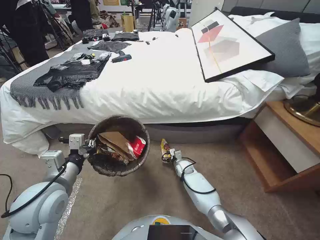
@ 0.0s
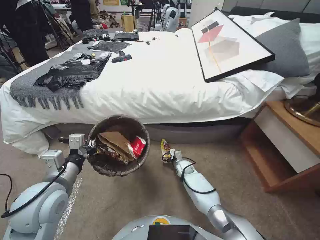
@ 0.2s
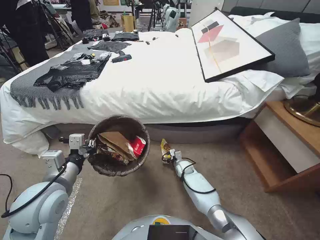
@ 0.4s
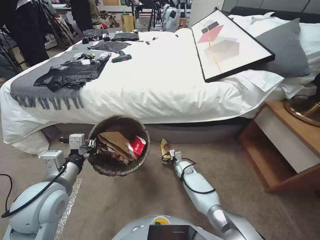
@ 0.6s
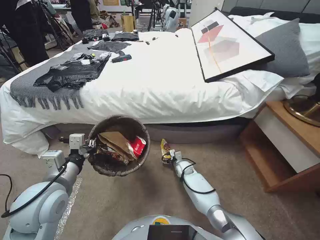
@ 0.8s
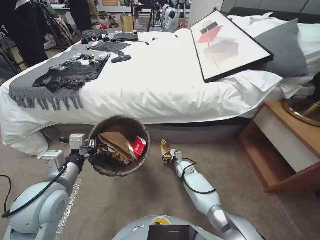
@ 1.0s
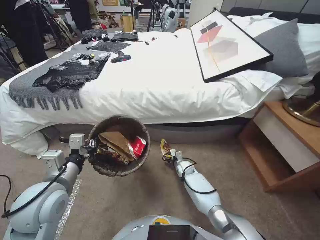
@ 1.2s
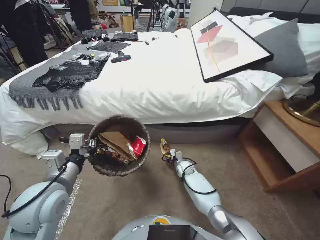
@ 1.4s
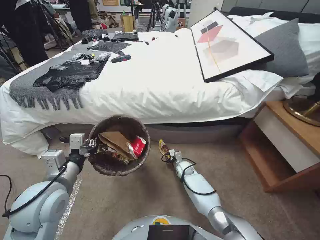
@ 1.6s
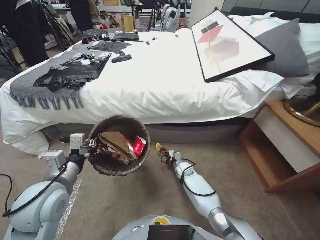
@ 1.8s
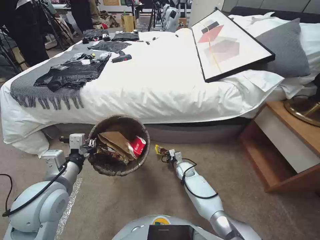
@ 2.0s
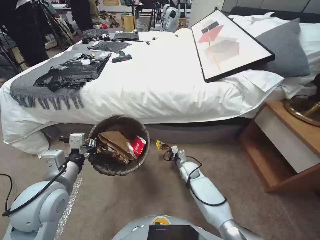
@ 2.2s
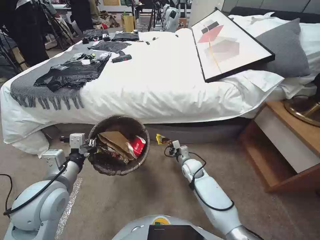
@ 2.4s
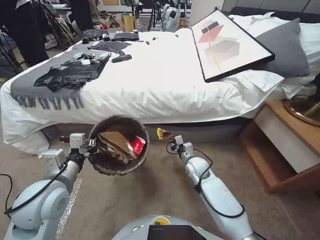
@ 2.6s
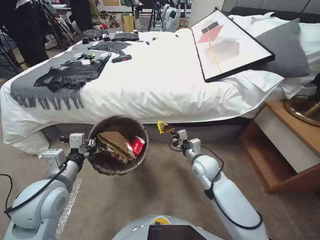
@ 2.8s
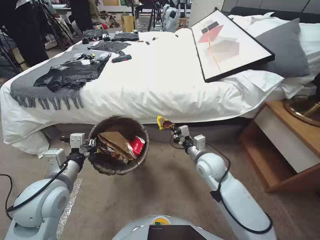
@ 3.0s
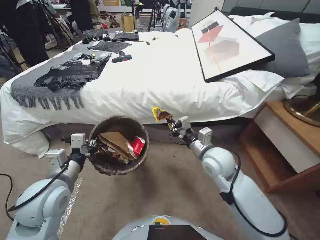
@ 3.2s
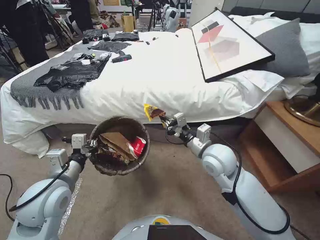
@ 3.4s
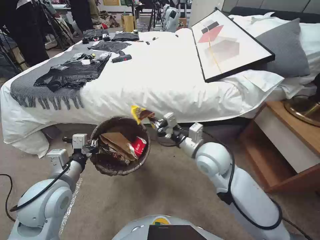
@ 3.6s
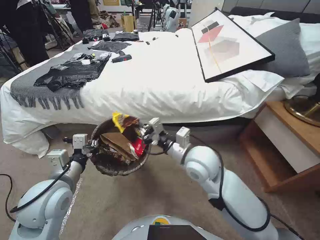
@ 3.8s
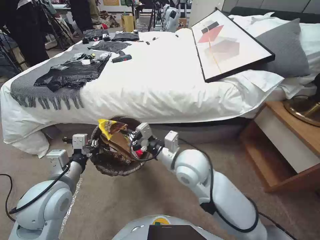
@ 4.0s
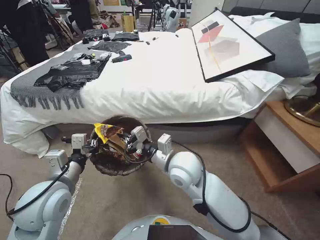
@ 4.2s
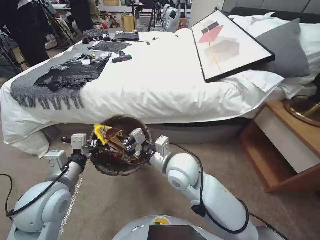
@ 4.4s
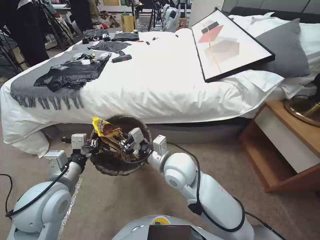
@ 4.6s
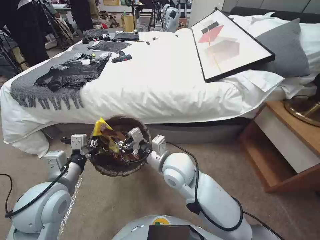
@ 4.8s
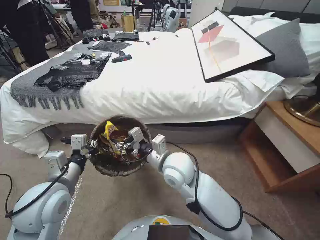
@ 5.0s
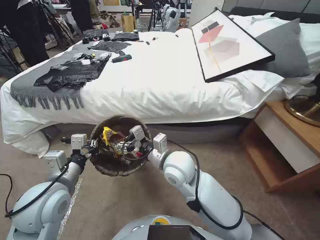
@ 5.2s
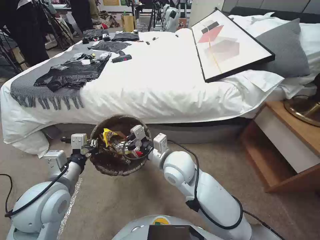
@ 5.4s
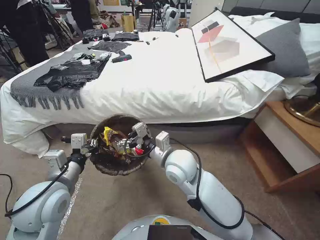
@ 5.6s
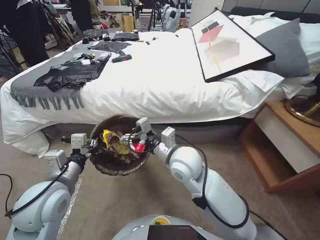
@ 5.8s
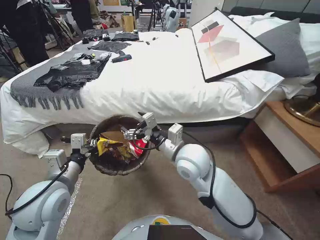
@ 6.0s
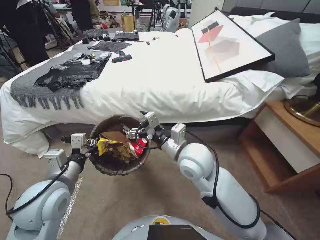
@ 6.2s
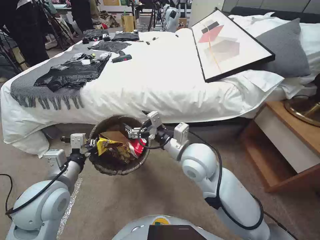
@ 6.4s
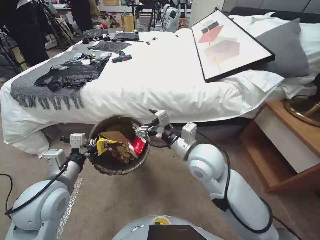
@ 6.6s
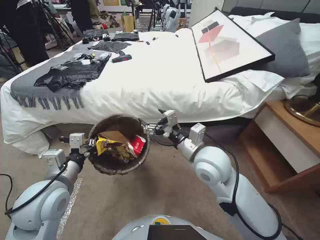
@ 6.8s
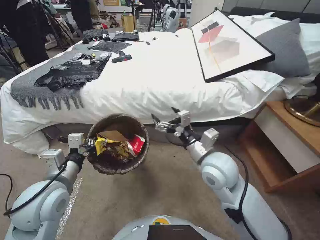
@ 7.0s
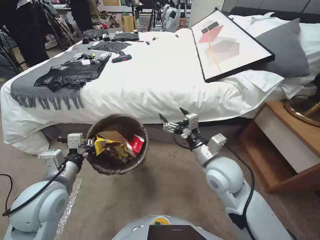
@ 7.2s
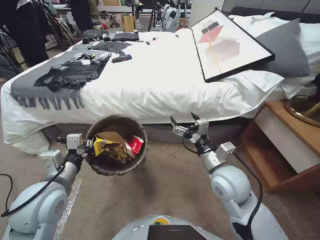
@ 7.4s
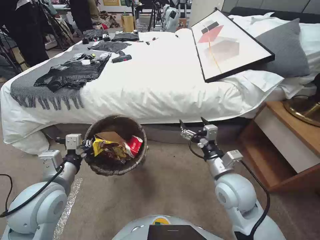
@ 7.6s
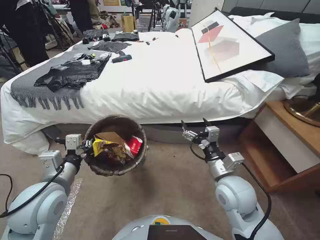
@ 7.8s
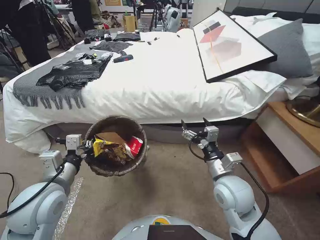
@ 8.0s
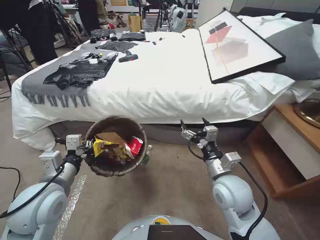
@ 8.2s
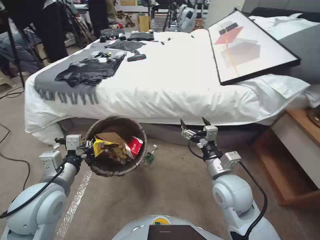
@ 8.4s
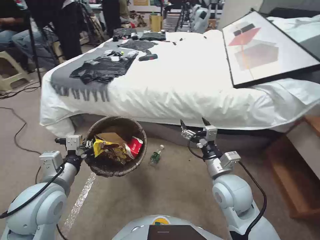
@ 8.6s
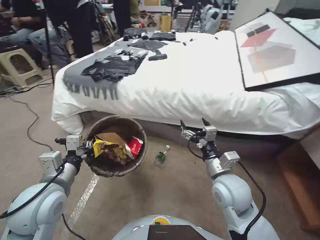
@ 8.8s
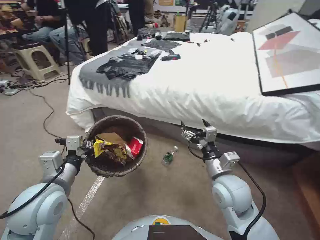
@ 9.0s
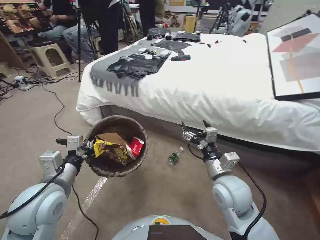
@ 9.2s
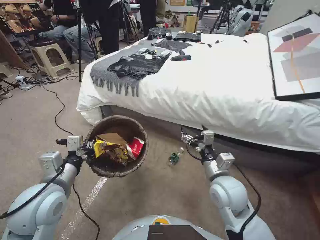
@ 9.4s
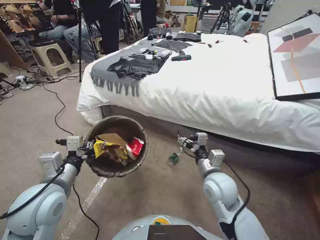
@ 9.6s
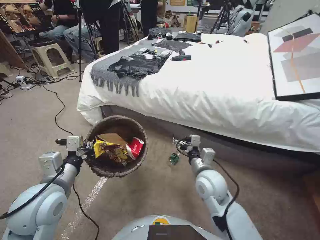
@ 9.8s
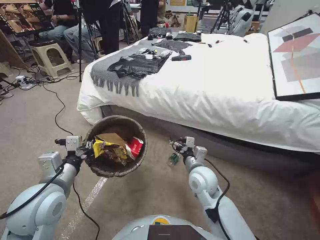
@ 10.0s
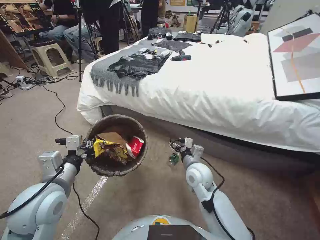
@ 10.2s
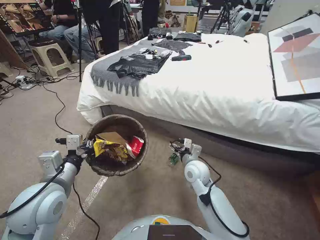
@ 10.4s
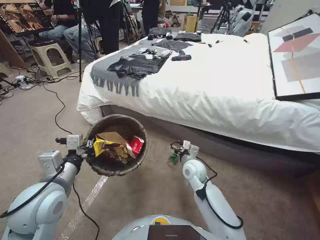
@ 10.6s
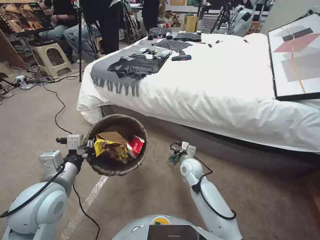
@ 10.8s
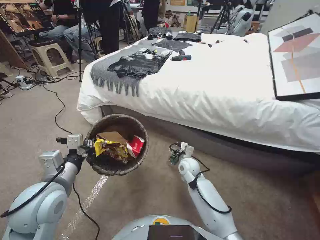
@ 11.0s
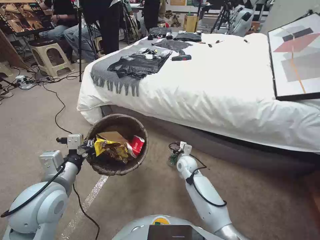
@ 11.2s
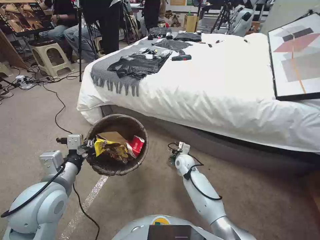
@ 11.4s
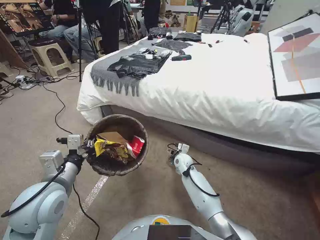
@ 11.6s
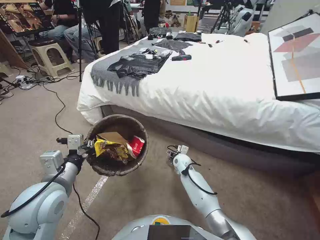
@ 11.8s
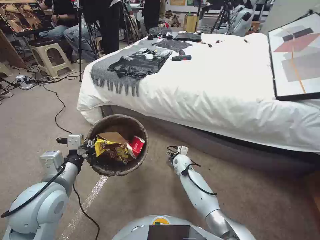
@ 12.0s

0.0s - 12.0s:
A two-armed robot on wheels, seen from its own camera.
Task of the whole recording: Pick up the trash bin, then pick up the garbage from the floor and place it into the trash bin.
0.0s - 1.6s: The right gripper closes up.
1.6s - 3.0s: The right gripper moves upward, some 25 cm, and closes up.
3.0s - 4.4s: The right gripper travels to the left, upward and backward by some 20 cm.
4.4s - 6.0s: The right gripper opens.
6.0s - 7.6s: The right gripper heads to the right and backward, covering some 15 cm.
9.0s - 10.4s: The right gripper travels downward, forward and to the left by some 15 cm.
10.4s - 12.0s: The right gripper moves downward and forward, approximately 20 cm.

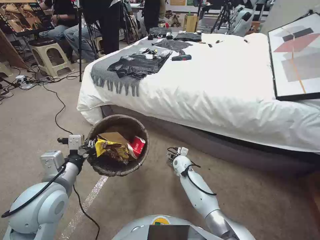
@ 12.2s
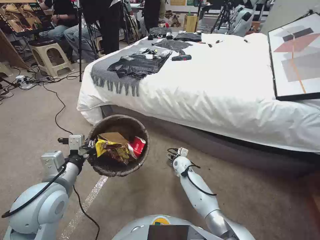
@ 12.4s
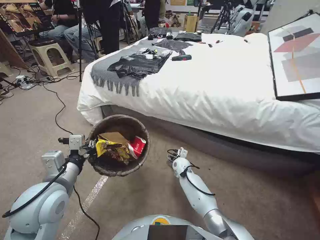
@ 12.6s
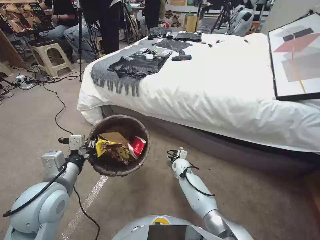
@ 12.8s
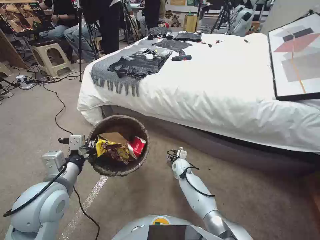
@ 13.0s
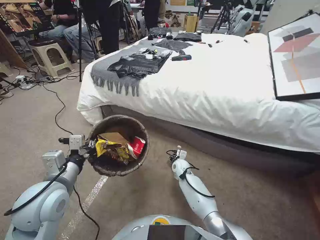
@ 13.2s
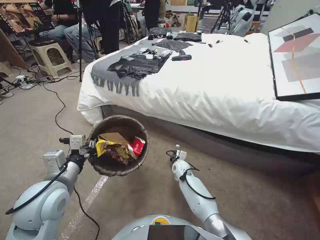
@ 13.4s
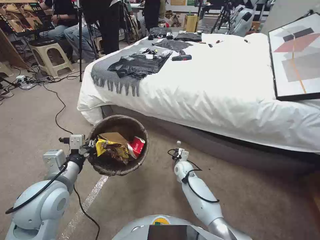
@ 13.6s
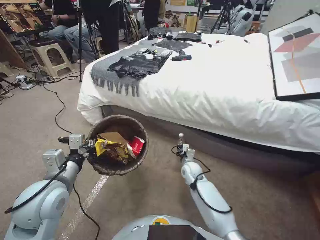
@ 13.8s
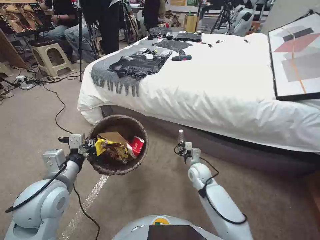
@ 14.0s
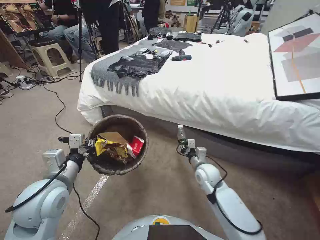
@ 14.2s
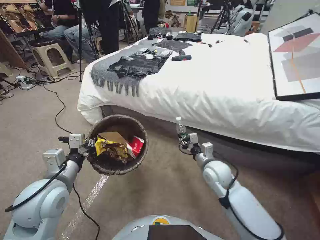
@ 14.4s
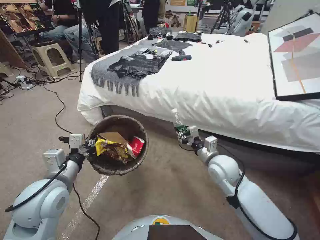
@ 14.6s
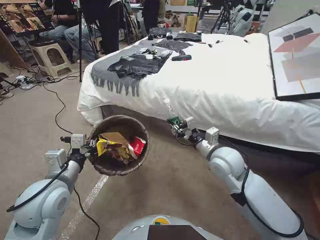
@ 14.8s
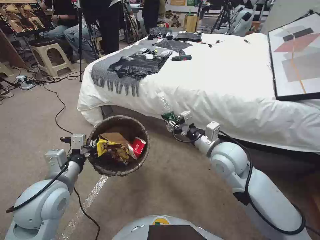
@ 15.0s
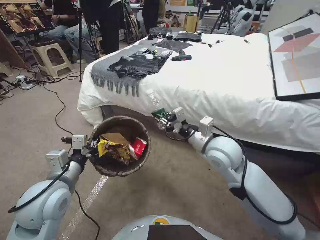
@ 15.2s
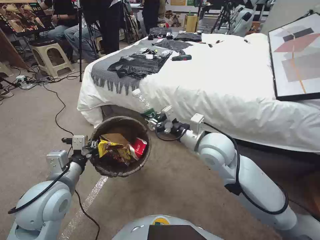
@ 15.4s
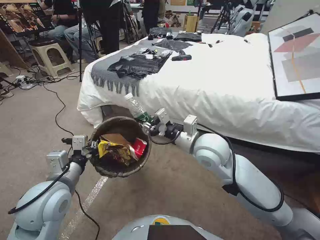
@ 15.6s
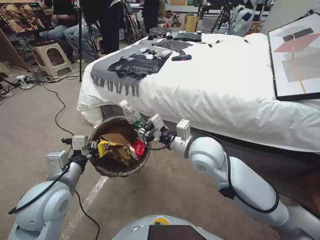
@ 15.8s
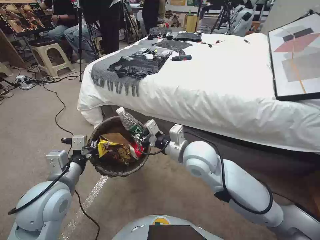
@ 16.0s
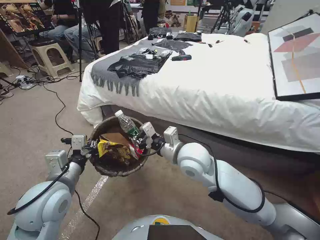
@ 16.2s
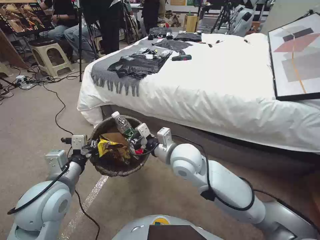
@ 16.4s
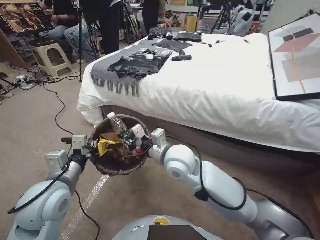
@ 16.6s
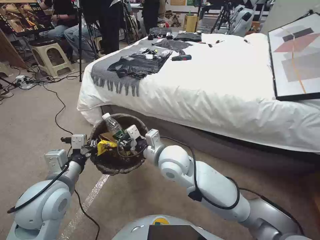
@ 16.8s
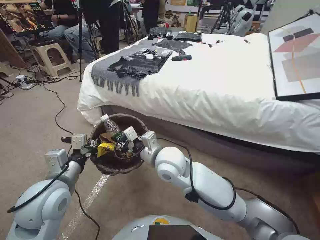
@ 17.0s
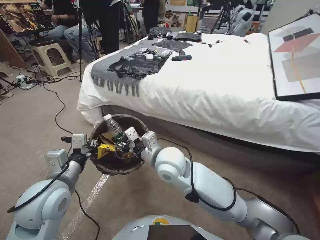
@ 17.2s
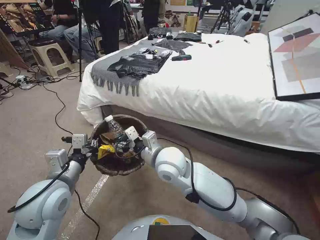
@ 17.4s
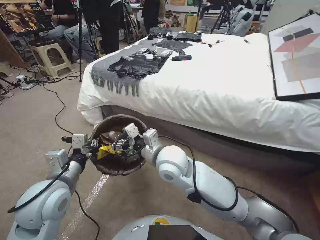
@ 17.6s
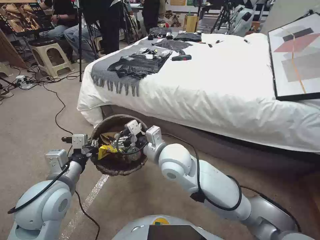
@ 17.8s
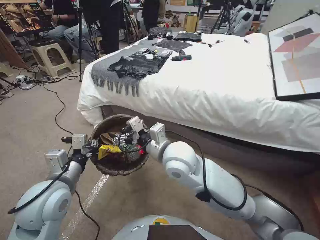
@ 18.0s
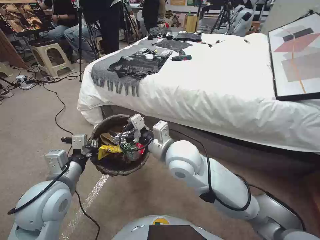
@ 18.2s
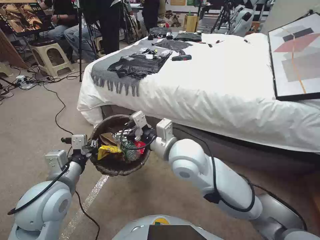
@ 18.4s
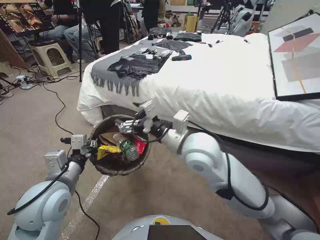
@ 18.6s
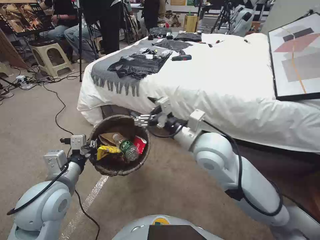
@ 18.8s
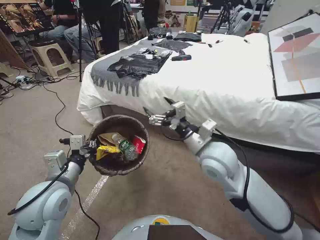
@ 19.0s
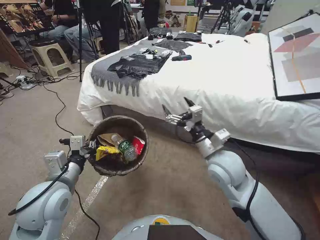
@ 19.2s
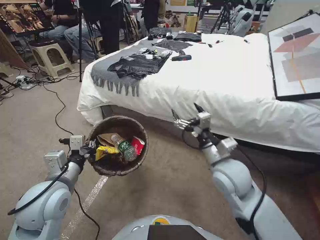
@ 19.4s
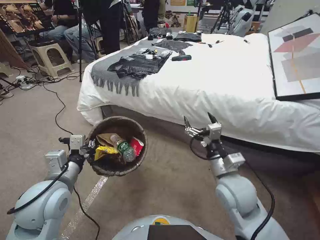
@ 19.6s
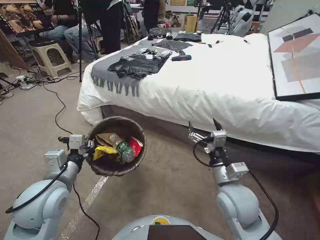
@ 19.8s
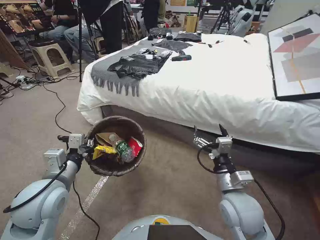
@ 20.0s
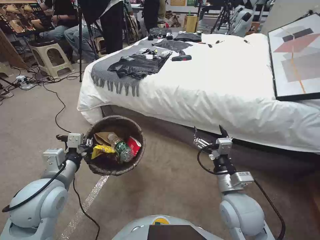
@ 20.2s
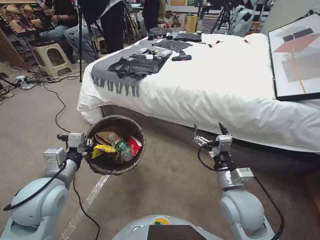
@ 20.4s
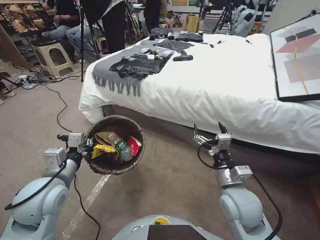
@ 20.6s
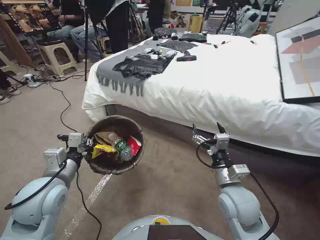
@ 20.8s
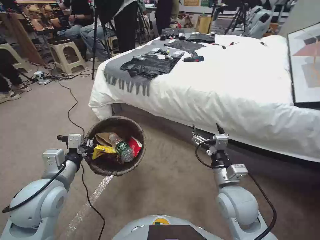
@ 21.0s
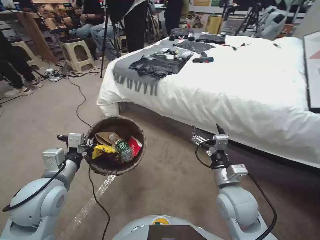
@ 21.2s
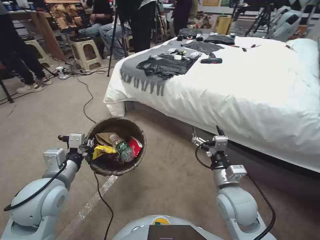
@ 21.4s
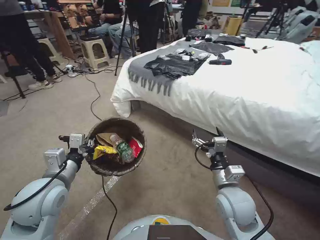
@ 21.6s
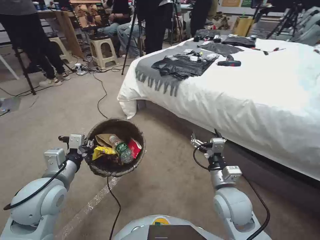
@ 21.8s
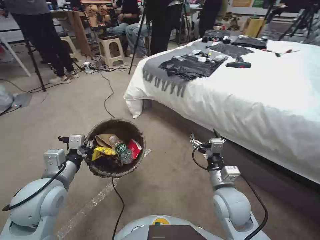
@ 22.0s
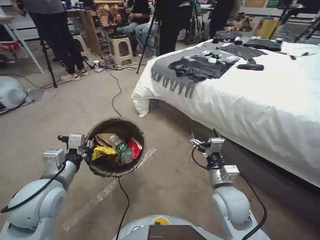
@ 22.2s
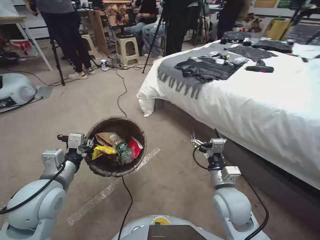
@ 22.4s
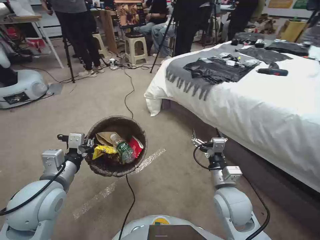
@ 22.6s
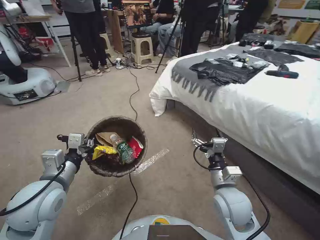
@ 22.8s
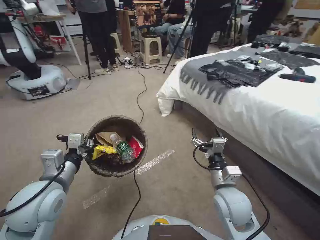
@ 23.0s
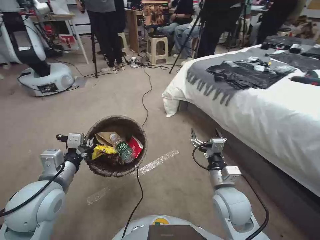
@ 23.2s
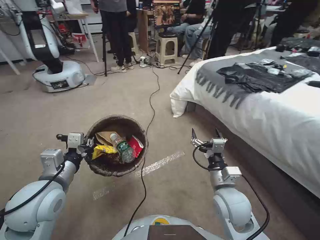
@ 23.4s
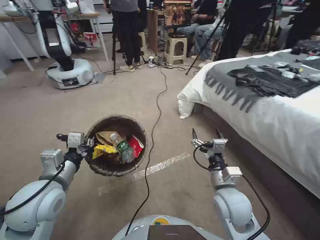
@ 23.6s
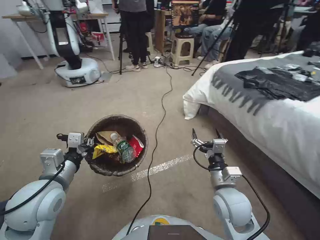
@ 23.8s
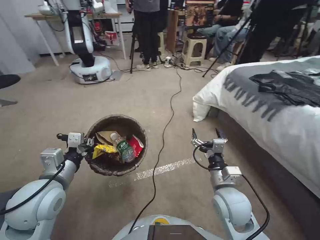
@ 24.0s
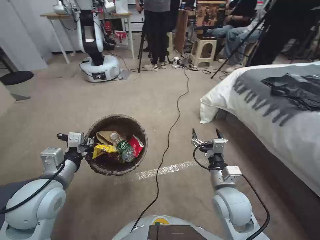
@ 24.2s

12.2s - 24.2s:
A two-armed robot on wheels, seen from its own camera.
Task of the whole recording: Pick up the trash bin, then pick up the garbage from the floor and place it into the trash bin.
12.2s - 13.8s: The right gripper closes.
13.8s - 15.2s: The right gripper moves upward, about 35 cm.
15.2s - 16.6s: The right gripper moves to the left, about 15 cm.
16.6s - 18.2s: The right gripper opens its fingers.
18.2s - 19.8s: The right gripper moves to the right, downward and backward, about 20 cm.
